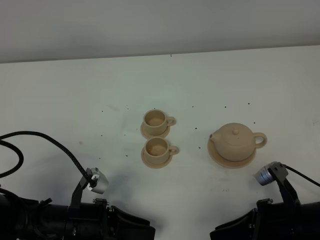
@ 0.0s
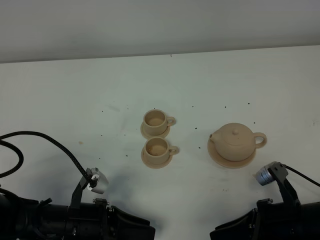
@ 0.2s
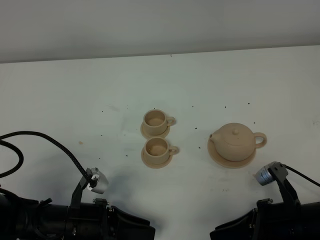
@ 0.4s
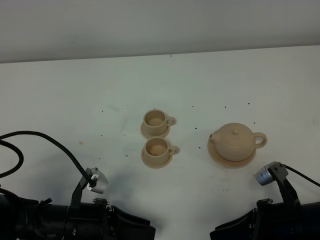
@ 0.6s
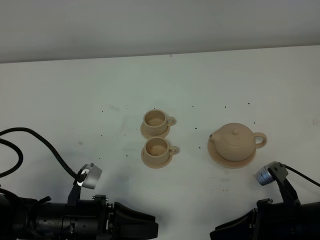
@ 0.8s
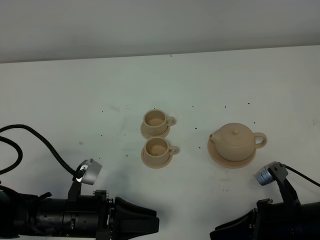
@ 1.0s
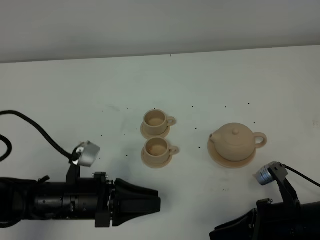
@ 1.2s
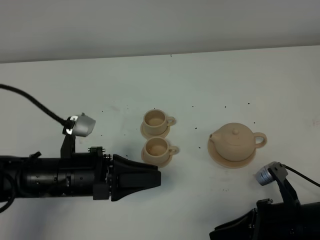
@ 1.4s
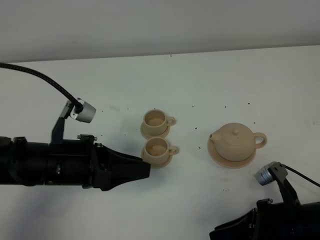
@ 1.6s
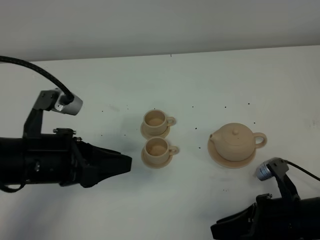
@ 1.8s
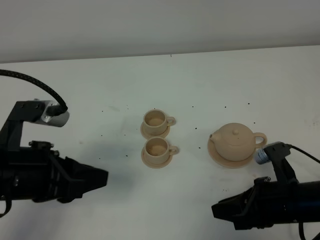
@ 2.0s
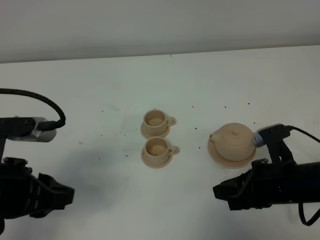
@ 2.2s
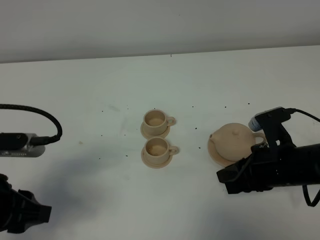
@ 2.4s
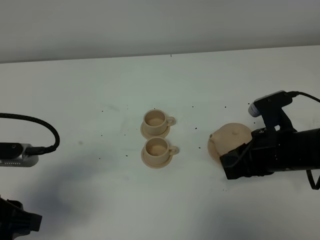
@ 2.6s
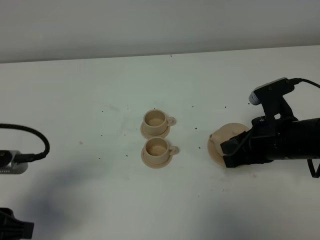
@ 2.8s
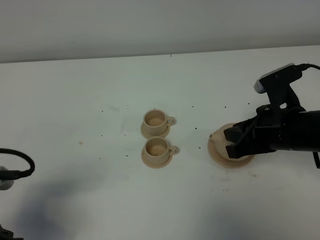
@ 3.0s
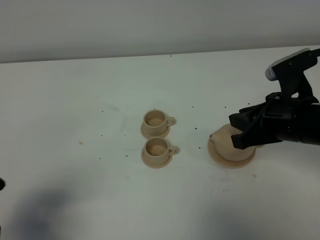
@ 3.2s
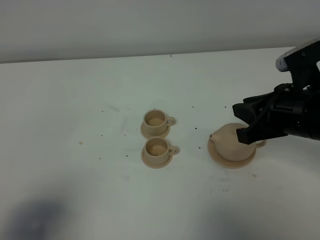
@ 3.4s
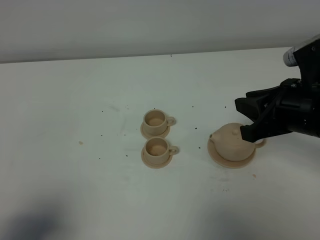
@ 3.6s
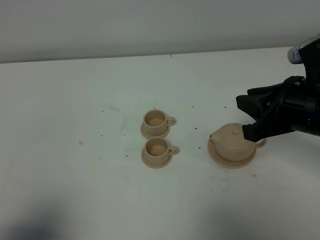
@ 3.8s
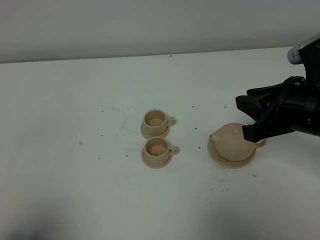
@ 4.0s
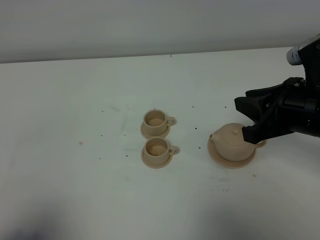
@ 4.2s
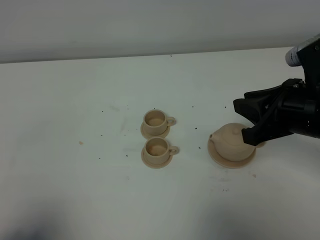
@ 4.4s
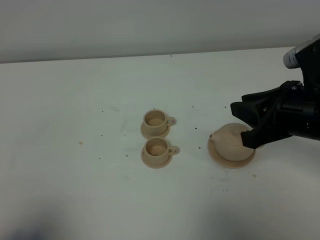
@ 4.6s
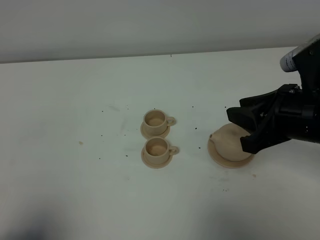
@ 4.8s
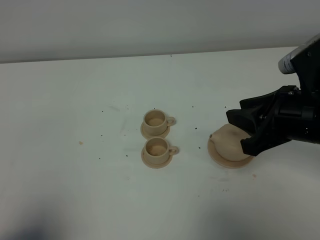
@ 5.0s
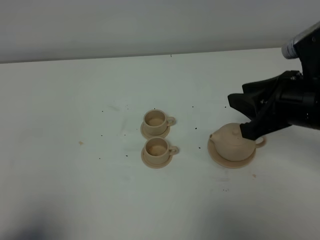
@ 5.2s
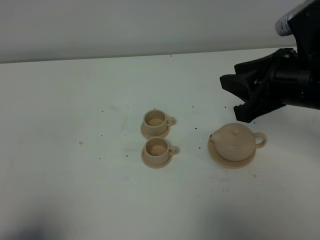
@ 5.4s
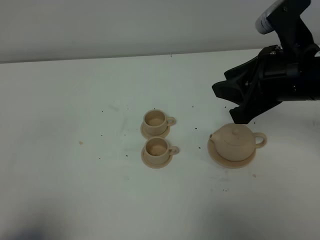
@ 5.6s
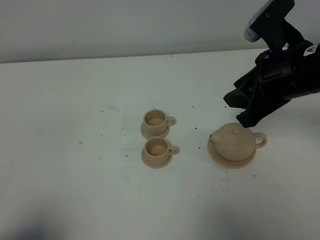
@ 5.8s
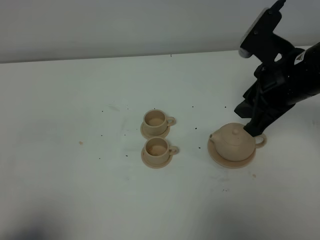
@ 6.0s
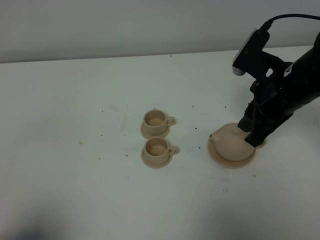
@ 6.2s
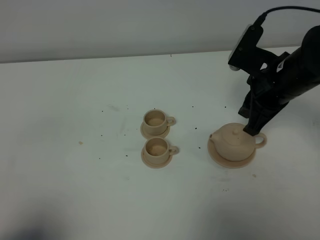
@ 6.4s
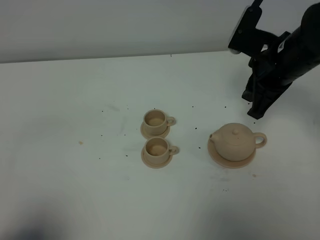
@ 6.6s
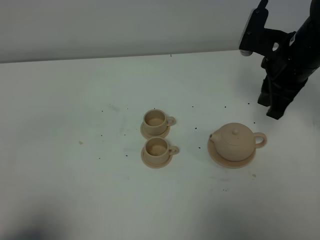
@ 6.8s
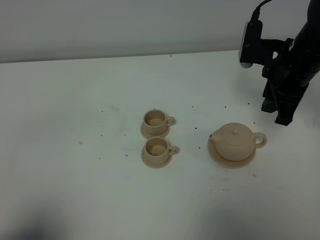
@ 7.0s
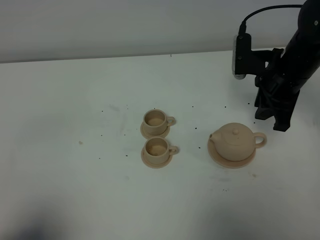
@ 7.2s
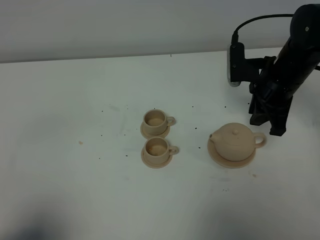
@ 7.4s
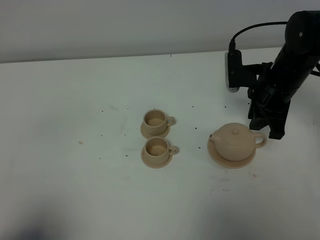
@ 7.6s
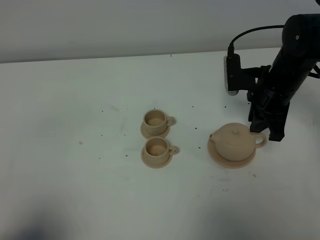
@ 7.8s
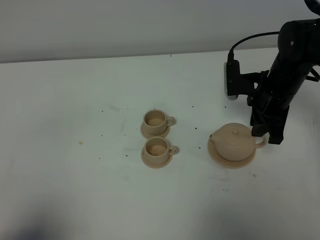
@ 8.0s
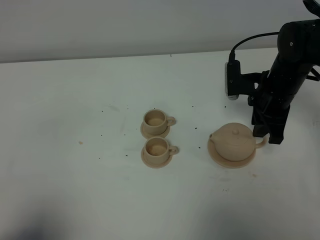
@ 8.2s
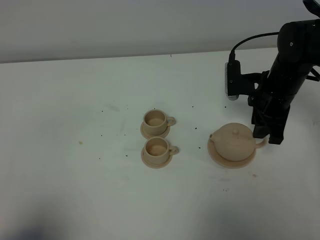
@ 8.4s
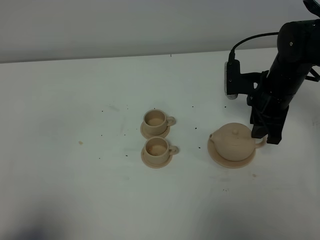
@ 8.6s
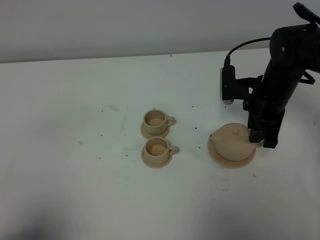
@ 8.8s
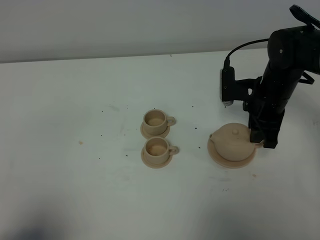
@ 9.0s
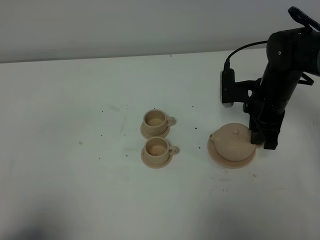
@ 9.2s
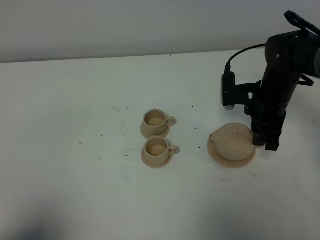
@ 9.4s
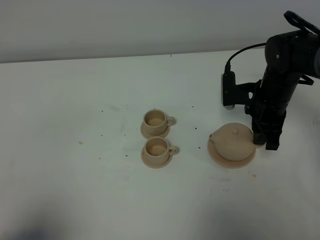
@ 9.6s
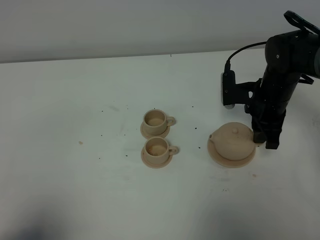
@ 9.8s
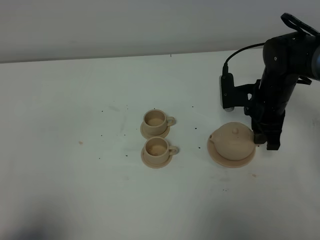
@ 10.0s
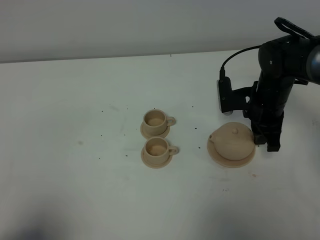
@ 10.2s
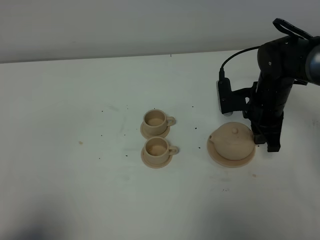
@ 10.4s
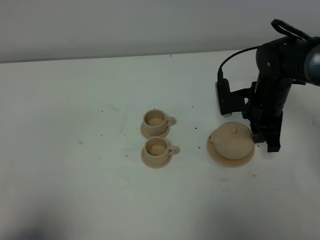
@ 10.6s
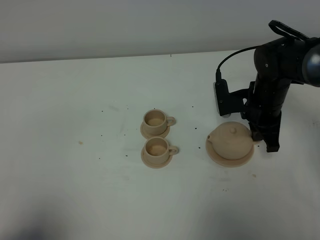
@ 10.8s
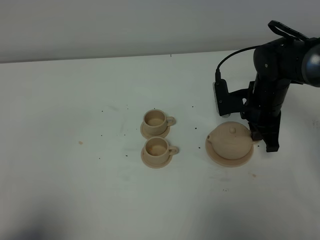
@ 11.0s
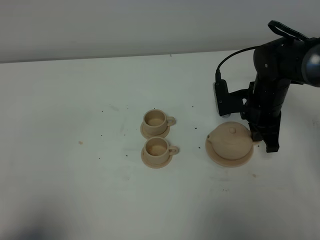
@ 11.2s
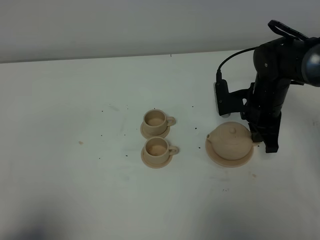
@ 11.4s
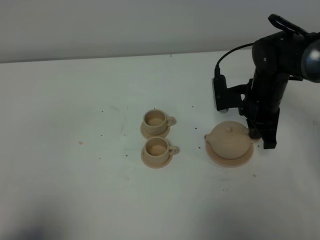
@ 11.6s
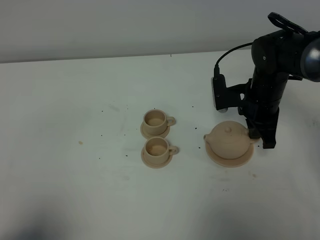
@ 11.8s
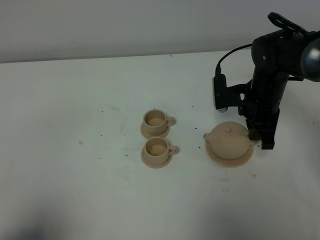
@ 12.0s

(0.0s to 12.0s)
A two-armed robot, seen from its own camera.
Task of the whole recording: grasp the brown teapot and pour the tea into the two brown teacups one by one, put the brown teapot back in its original place.
0.0s - 1.6s: The left gripper travels upward and forward by some 15 cm.
1.6s - 3.0s: The left gripper shifts approximately 15 cm backward and to the left, and closes. The right gripper travels forward and upward by roughly 15 cm.
3.0s - 4.4s: The left gripper moves backward, approximately 10 cm; the right gripper moves upward, approximately 5 cm.
4.4s - 6.0s: The right gripper heads forward, covering approximately 5 cm.
6.0s - 7.6s: The right gripper goes approximately 10 cm forward and downward.
7.6s - 10.4s: The grippers move only a little.
10.4s - 12.0s: The right gripper closes its fingers.

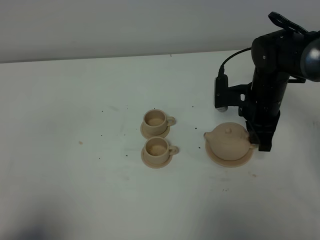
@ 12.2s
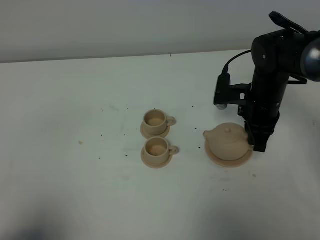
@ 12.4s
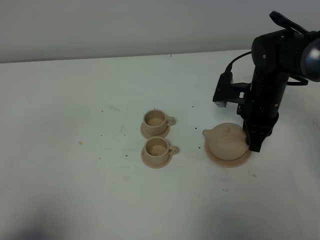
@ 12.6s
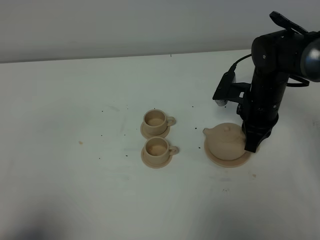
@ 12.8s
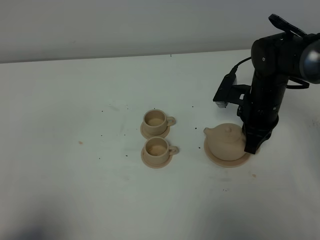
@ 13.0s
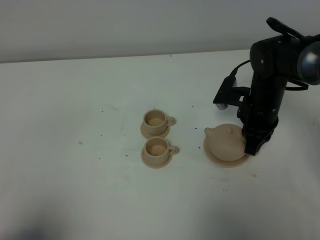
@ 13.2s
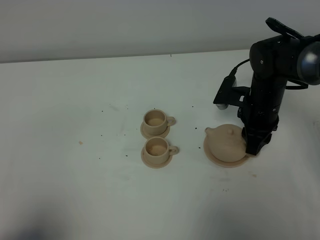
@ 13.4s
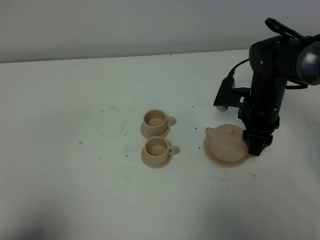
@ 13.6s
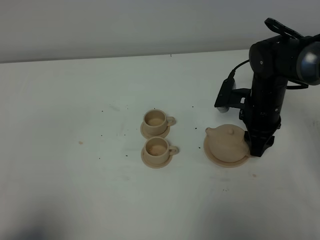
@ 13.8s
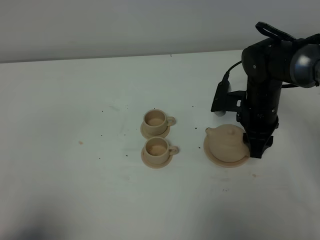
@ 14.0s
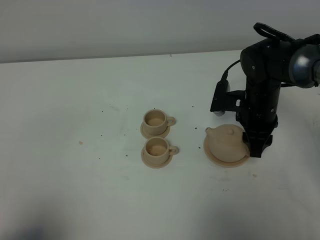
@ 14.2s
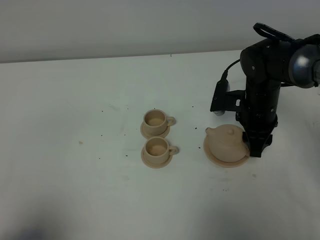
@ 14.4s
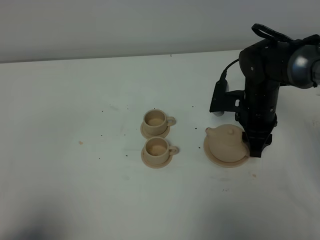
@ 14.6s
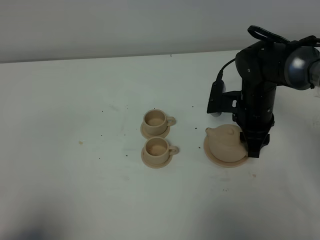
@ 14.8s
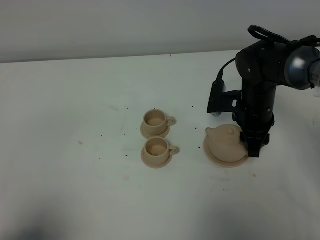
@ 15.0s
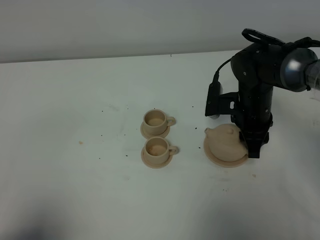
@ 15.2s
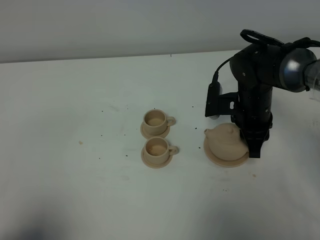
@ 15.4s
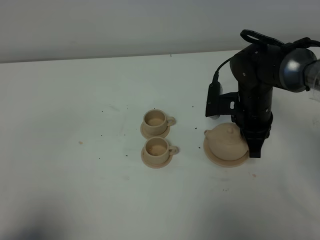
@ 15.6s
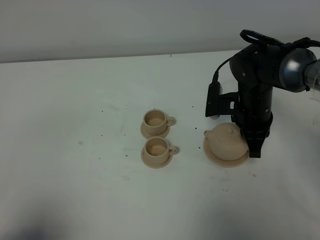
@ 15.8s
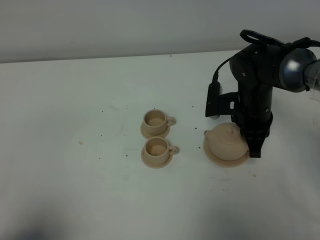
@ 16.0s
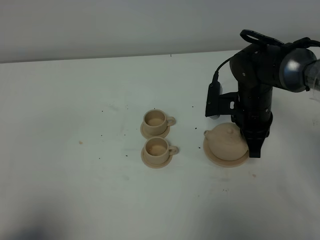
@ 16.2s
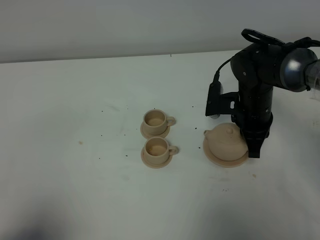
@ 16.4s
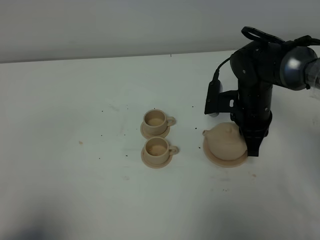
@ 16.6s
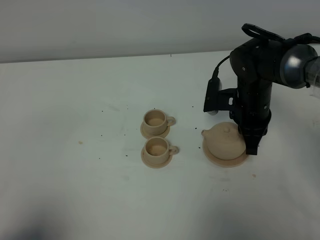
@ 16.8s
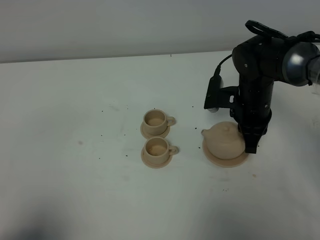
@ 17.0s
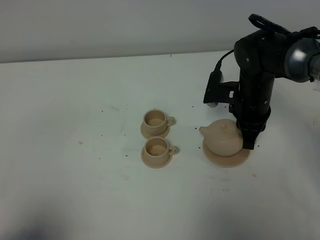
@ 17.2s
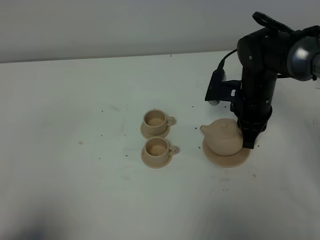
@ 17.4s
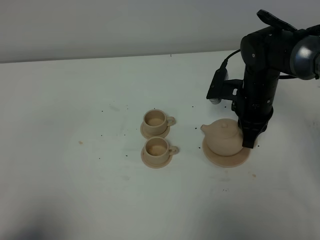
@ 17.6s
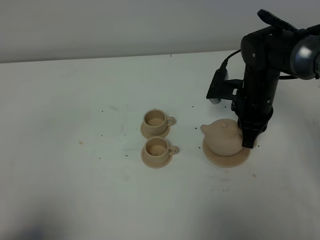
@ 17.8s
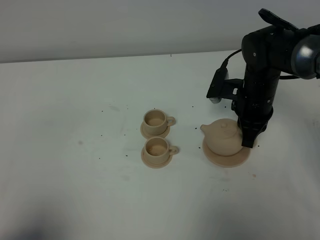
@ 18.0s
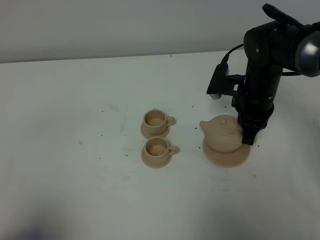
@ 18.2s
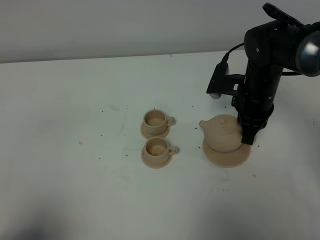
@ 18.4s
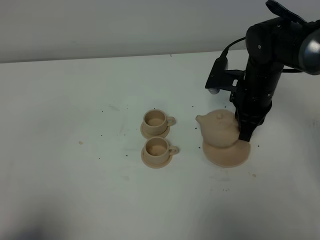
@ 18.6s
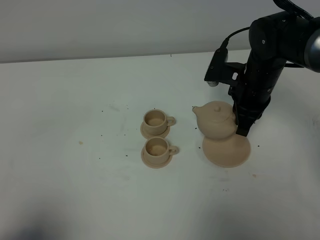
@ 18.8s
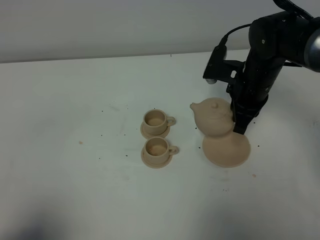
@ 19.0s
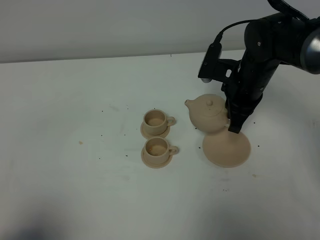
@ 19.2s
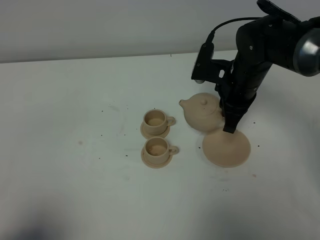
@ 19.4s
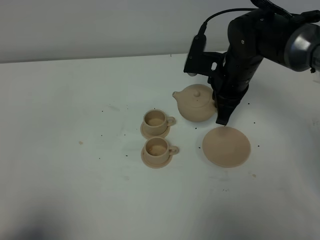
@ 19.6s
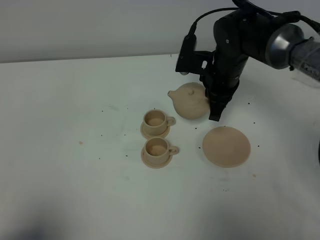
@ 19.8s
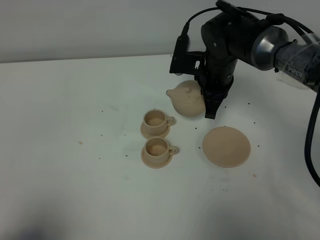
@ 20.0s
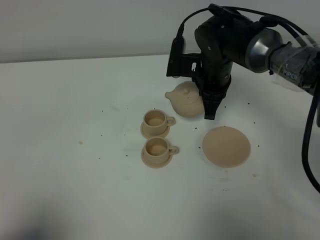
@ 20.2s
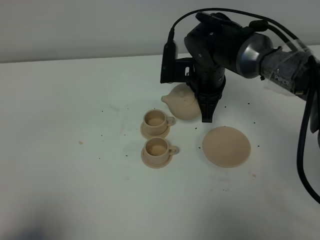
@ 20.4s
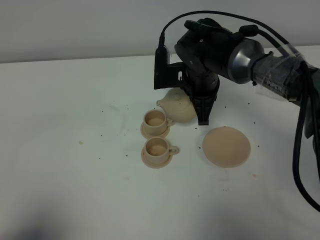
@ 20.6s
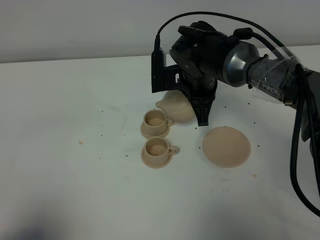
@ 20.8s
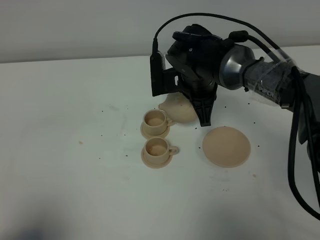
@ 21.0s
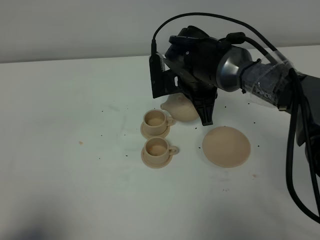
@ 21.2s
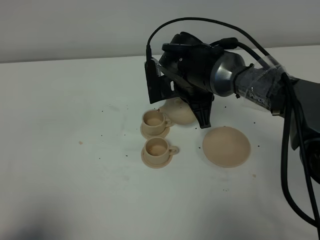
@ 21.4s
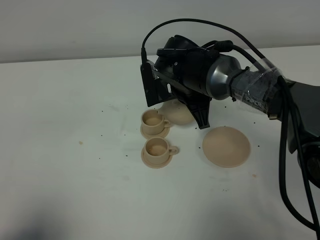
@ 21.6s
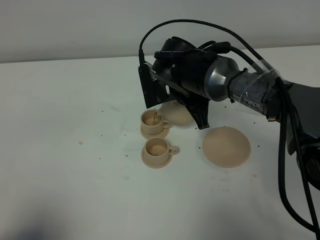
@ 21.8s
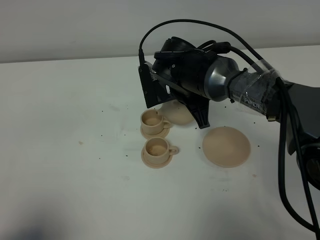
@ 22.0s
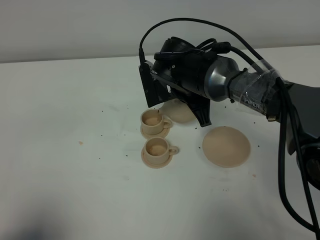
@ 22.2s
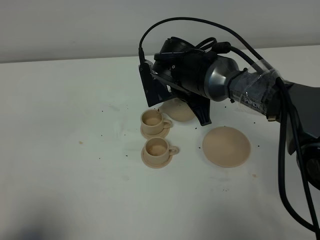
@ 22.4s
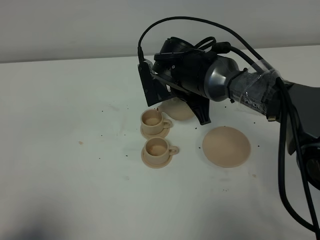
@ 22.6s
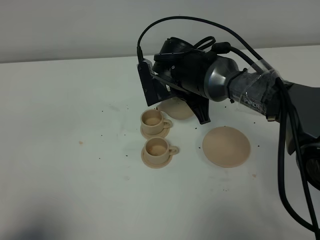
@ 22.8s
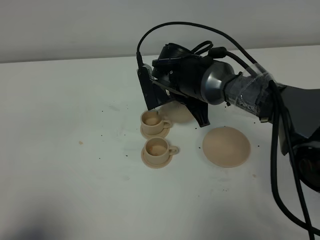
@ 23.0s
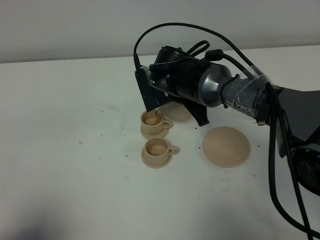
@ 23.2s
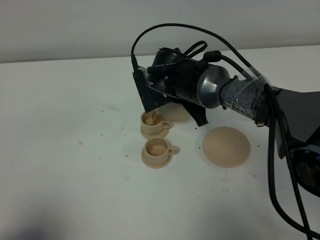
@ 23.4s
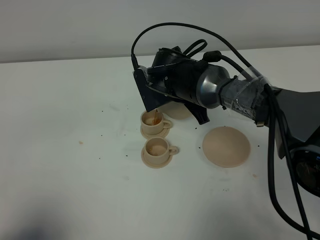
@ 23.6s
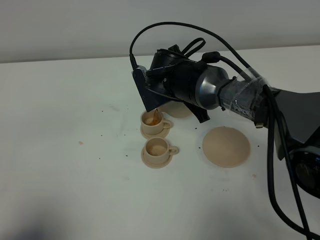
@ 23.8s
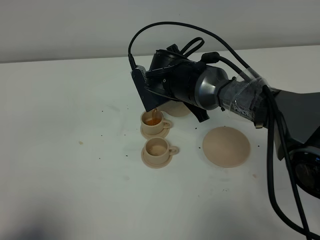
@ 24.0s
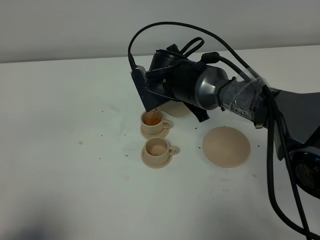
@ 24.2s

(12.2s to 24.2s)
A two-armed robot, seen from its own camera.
Task of the whole recording: grasp the brown teapot and pour the tea into the two brown teacups one by one, put the brown teapot back in its original place.
Step, 12.2s - 18.0s: Pick up the teapot with the right gripper.
12.2s - 13.8s: The right gripper opens its fingers.
13.8s - 15.2s: The grippers make only small movements.
15.2s - 16.6s: The right gripper closes.
16.6s - 18.2s: There are only small adjustments of the grippers.
18.2s - 19.8s: The right gripper heads to the left, covering some 5 cm.
19.8s - 21.2s: The right gripper moves to the left, some 5 cm.
21.2s - 24.2s: The grippers make only small movements.
